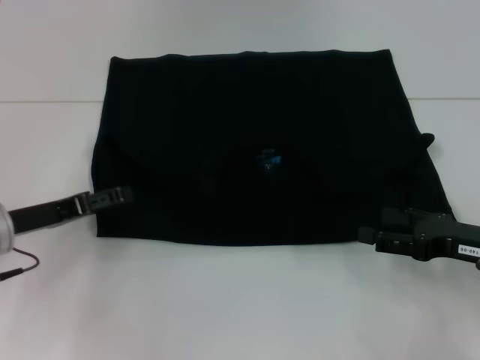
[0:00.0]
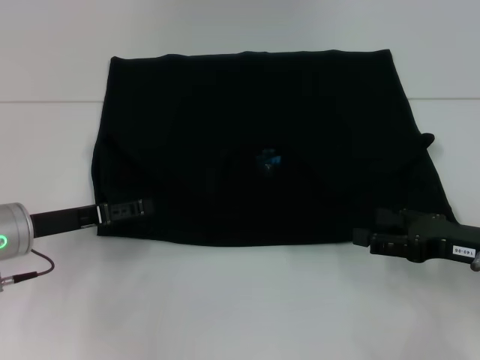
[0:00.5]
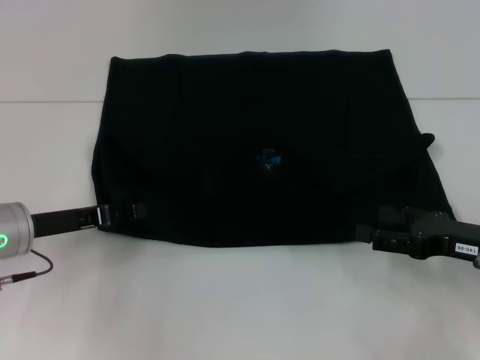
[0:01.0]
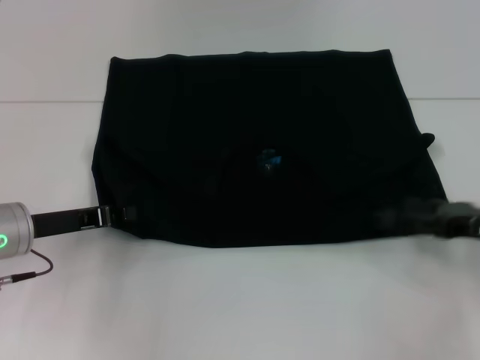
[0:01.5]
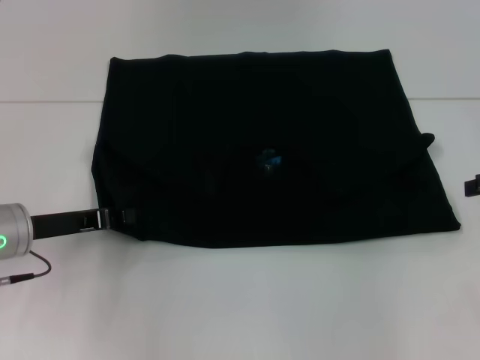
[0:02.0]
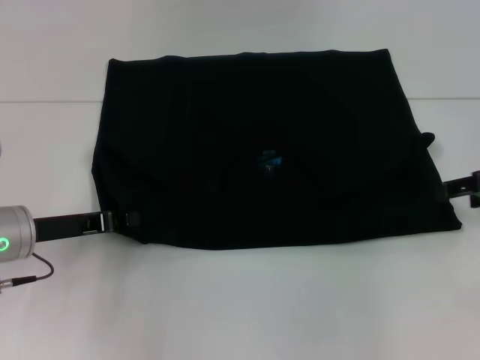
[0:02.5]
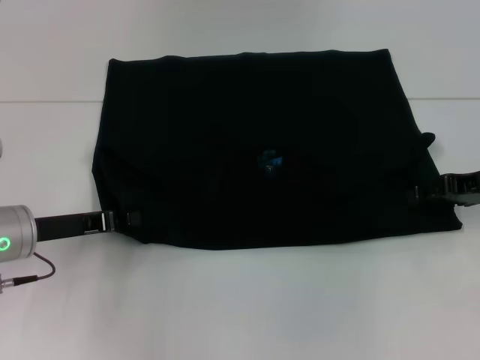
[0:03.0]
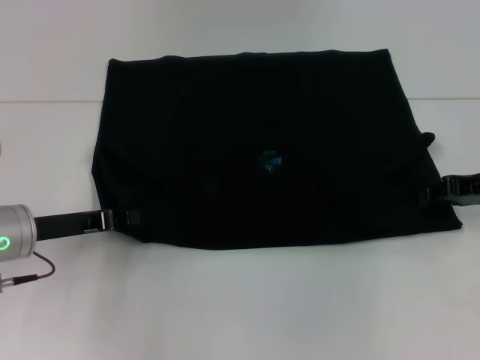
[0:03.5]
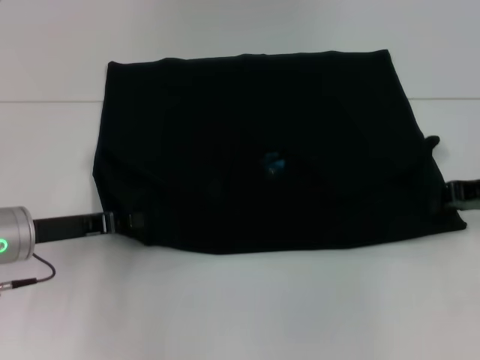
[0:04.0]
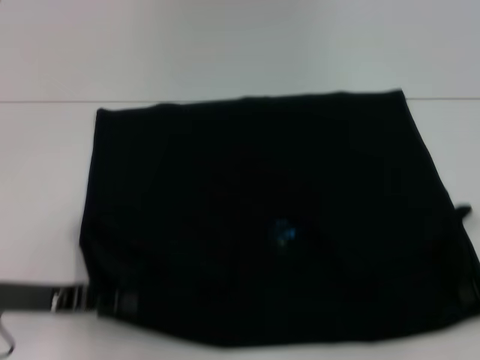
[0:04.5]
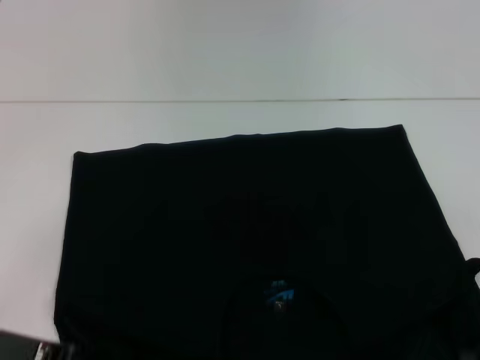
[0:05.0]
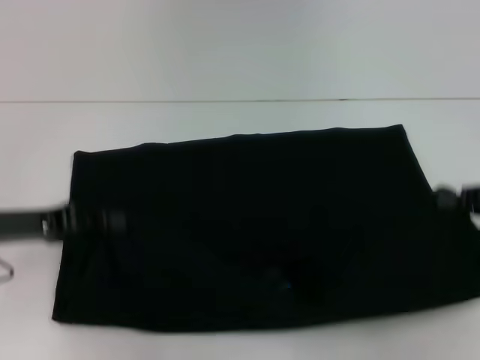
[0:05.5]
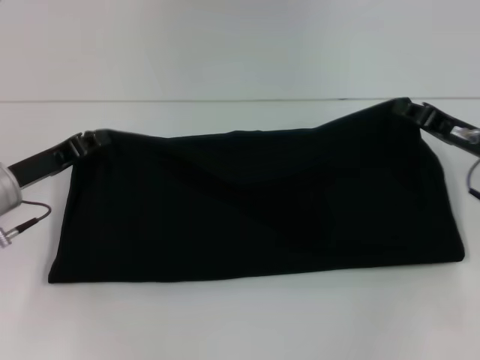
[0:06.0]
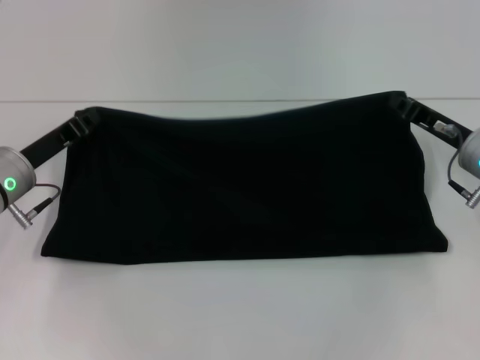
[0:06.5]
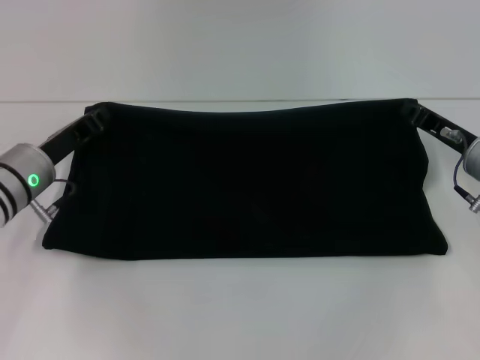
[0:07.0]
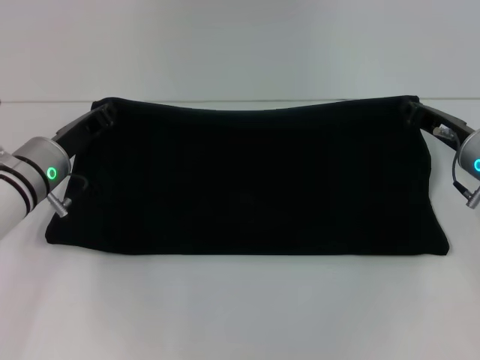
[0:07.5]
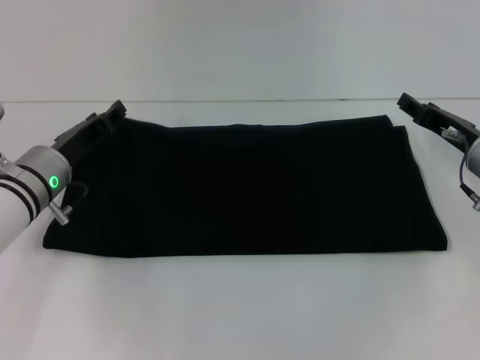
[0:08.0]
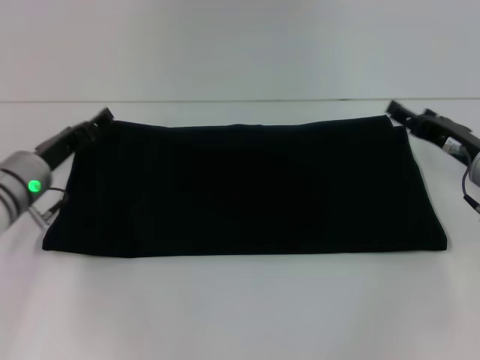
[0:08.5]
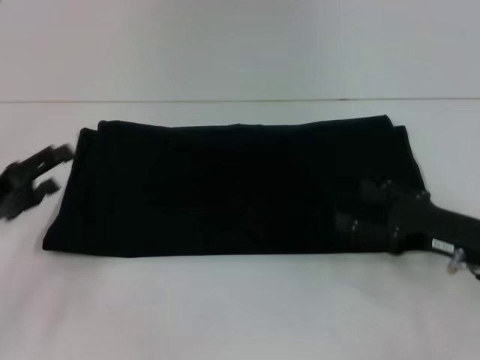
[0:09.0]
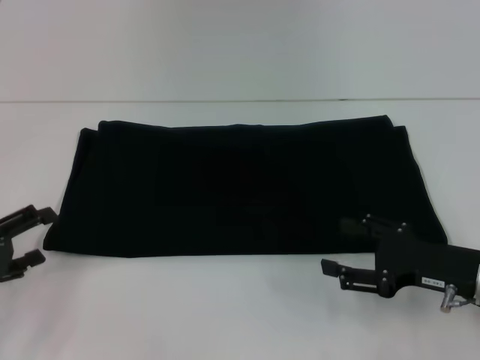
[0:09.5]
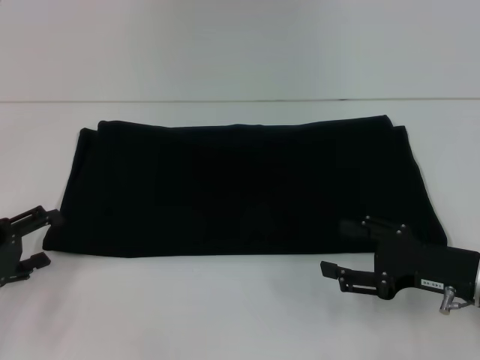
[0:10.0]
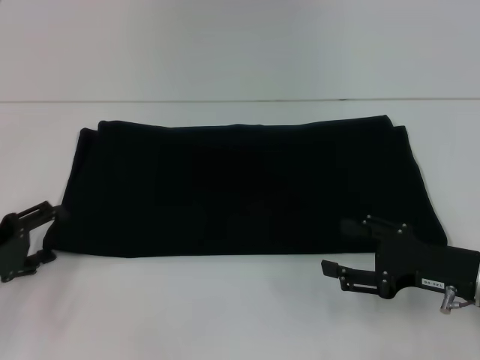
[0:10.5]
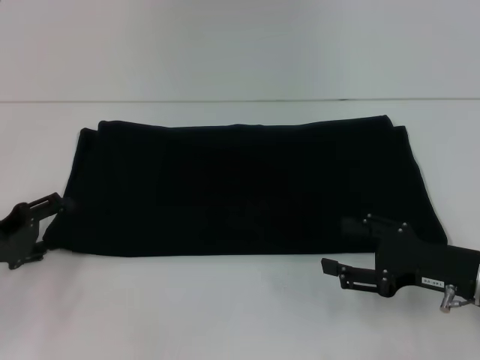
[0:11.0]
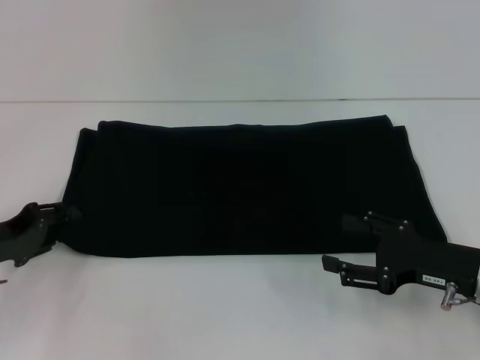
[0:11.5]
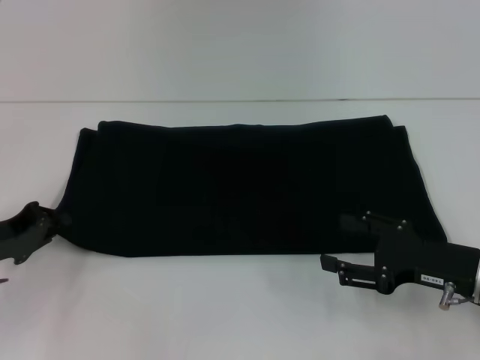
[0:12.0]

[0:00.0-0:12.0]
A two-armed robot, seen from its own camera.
Step, 0:00.0 to 0:04.5: Pull the clothes with your left hand.
Step, 0:00.0 to 0:04.5: Pull the clothes with your right hand.
Step, 0:05.0 to 0:08.0: Fold the clothes with your left hand.
Step, 0:05.0 to 0:08.0: Fold the clothes with your right hand.
0:00.0 to 0:02.0: The right gripper travels upward, to the right and forward by approximately 15 cm. Meanwhile the left gripper closes up.
0:02.0 to 0:04.0: The right gripper goes approximately 5 cm to the left, and closes.
0:04.0 to 0:06.0: The right gripper moves some 10 cm backward and comes back. The left gripper moves some 10 cm backward and comes back.
0:06.0 to 0:08.0: The right gripper opens up. The left gripper travels to the right by about 5 cm.
0:08.0 to 0:10.0: The right gripper heads backward, covering about 10 cm, and opens. The left gripper shifts about 15 cm backward and to the left, and opens.
0:10.0 to 0:12.0: The left gripper closes its fingers.

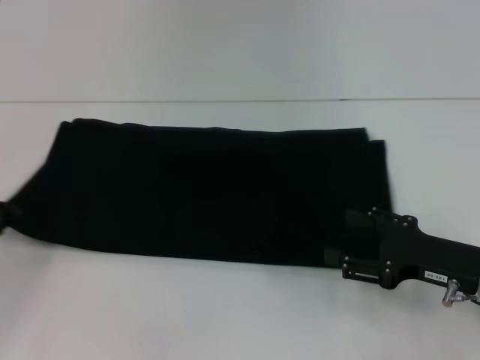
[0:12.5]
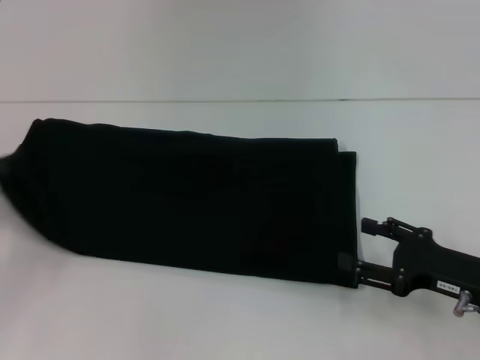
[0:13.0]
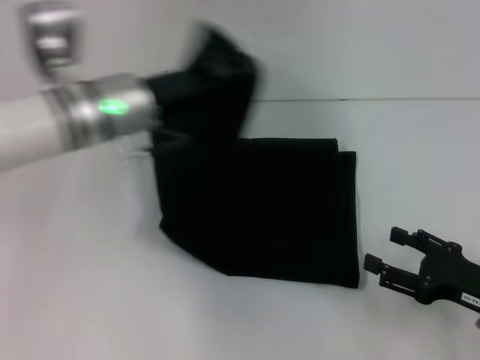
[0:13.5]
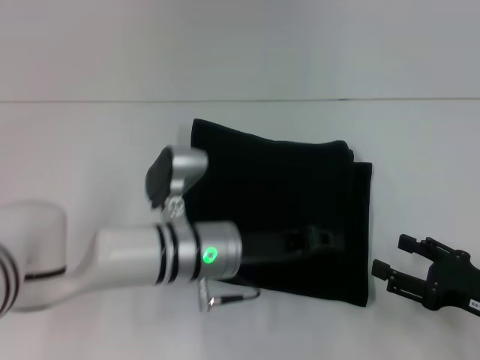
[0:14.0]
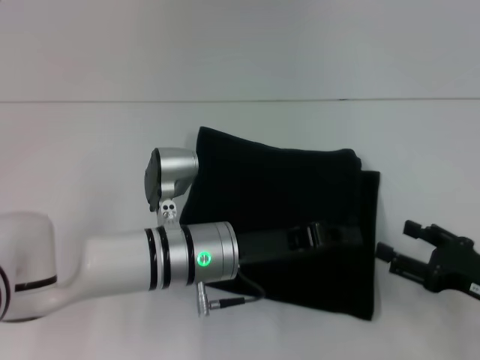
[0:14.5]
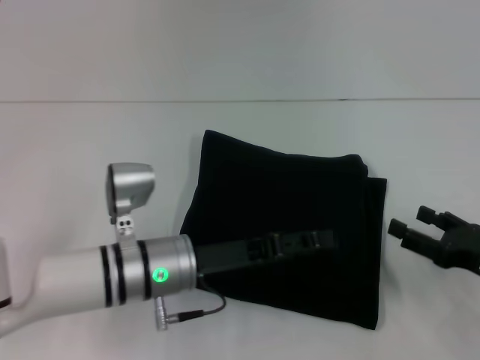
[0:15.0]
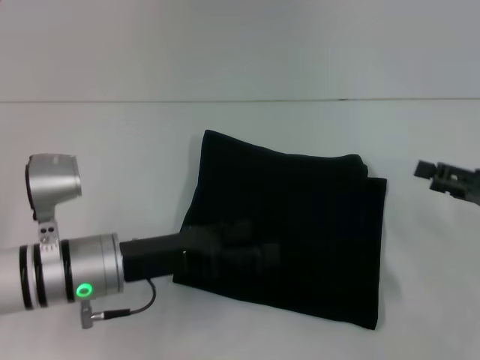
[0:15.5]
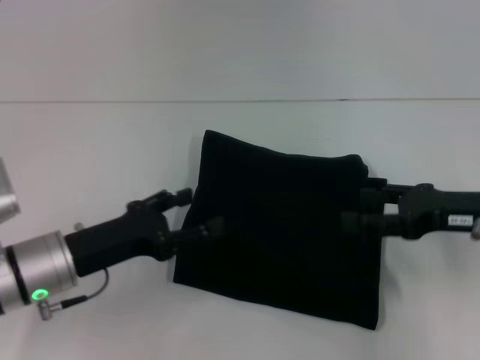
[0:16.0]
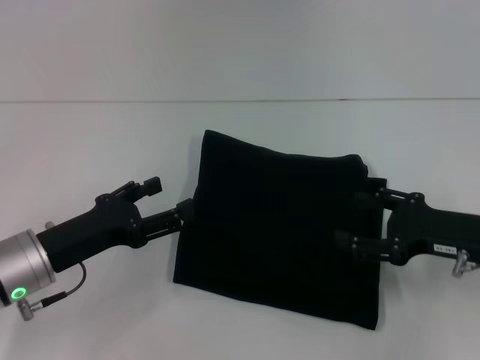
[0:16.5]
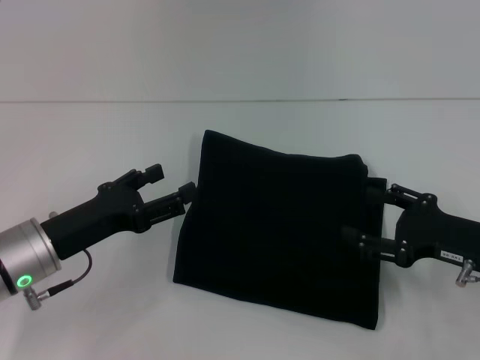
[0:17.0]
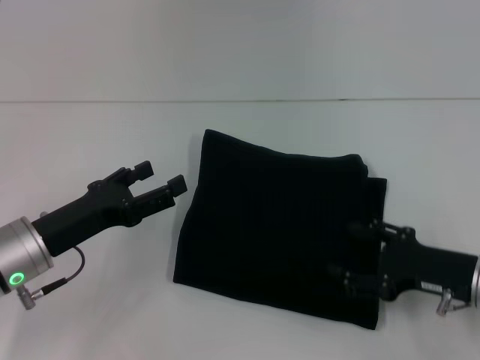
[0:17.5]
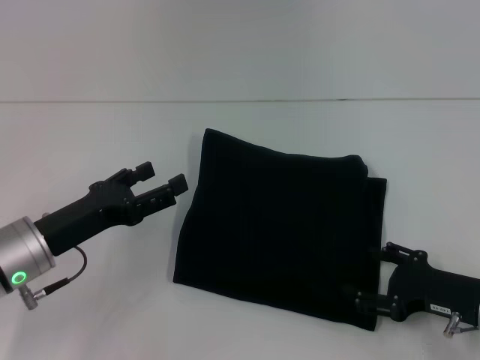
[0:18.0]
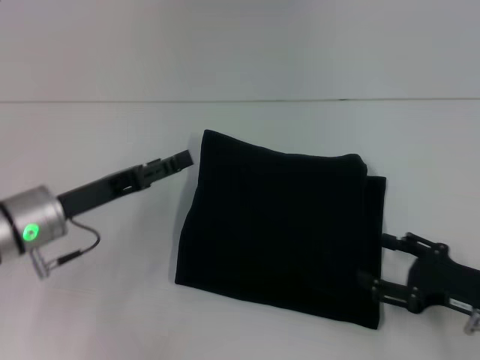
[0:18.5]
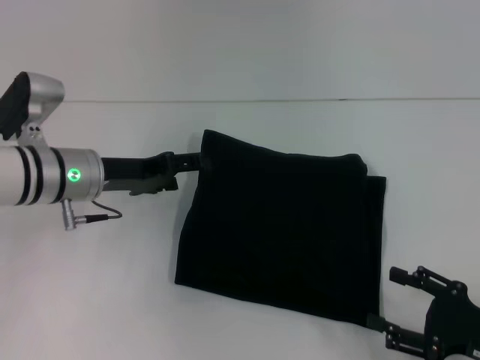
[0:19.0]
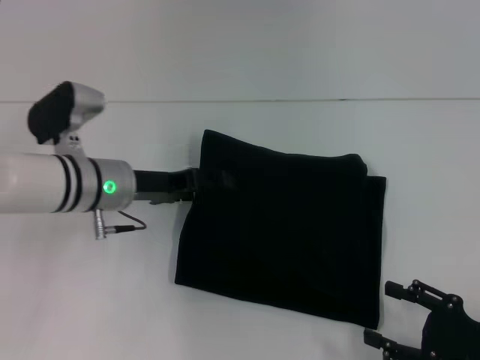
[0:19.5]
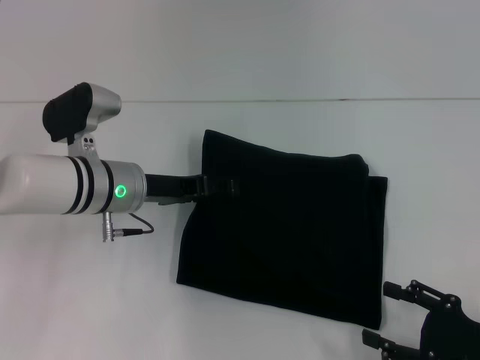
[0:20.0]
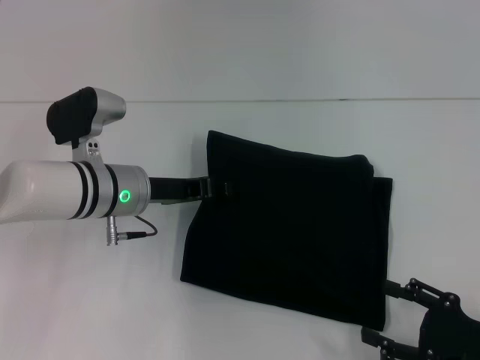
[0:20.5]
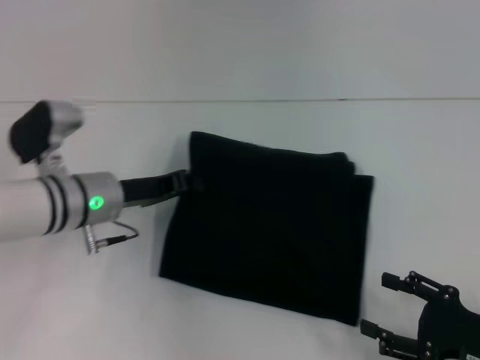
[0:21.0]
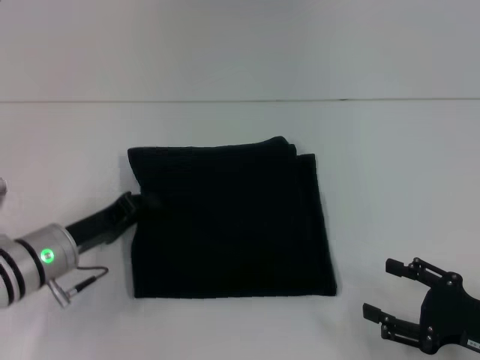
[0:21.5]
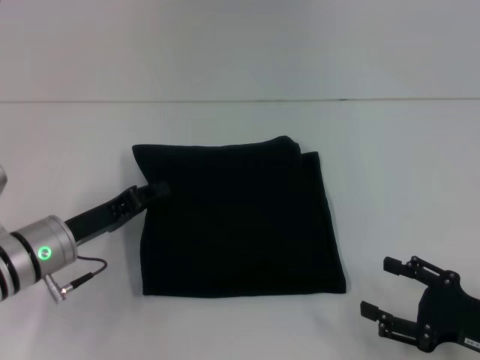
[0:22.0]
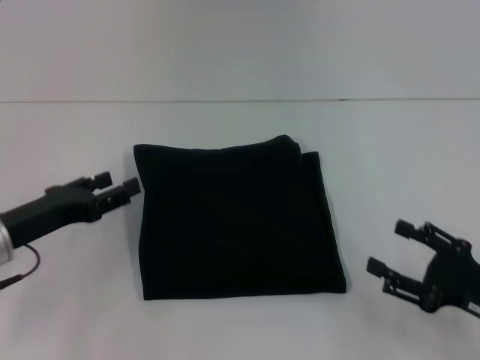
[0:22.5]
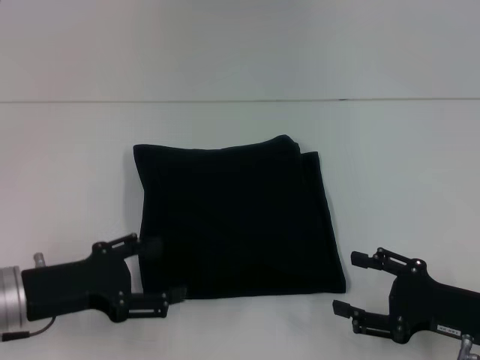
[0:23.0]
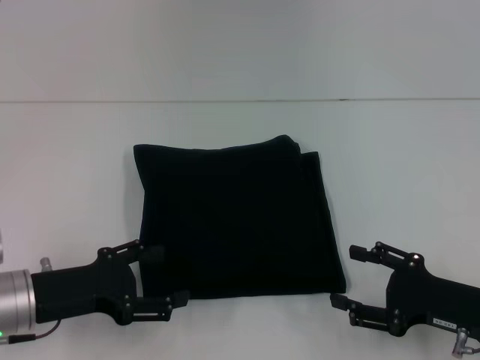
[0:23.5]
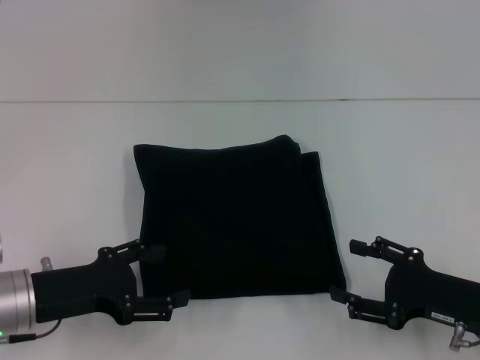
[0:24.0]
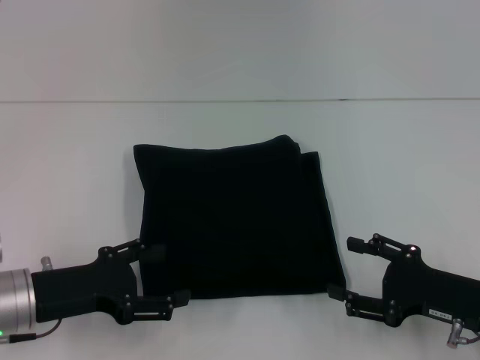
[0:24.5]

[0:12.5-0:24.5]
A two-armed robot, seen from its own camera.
Step, 0:12.5 to 0:14.5: Pull the clothes with your left hand.
0:12.5 to 0:14.5: The left gripper travels to the right by some 30 cm. Meanwhile the right gripper ends up approximately 5 cm from where it was.
0:14.5 to 0:16.5: The left gripper moves to the left, some 15 cm, and opens its fingers, while the right gripper shifts roughly 10 cm forward and upward.
0:16.5 to 0:18.5: The right gripper travels downward and backward by about 5 cm.
0:18.5 to 0:20.5: The left gripper is displaced to the right and forward by roughly 10 cm, and closes. Meanwhile the right gripper goes about 5 cm backward.
0:20.5 to 0:22.5: The left gripper moves to the left and backward, roughly 15 cm, and closes and opens again.
0:22.5 to 0:24.5: The left gripper opens its fingers.

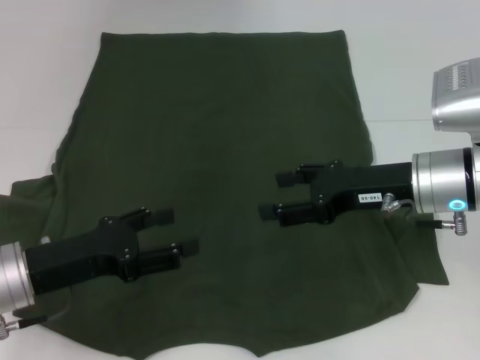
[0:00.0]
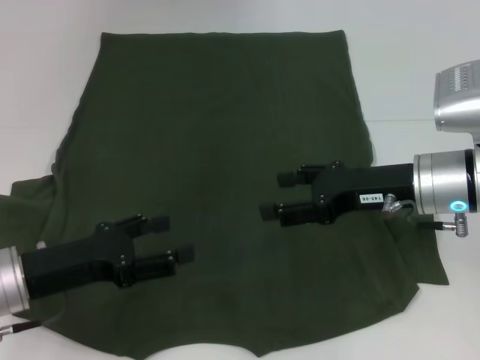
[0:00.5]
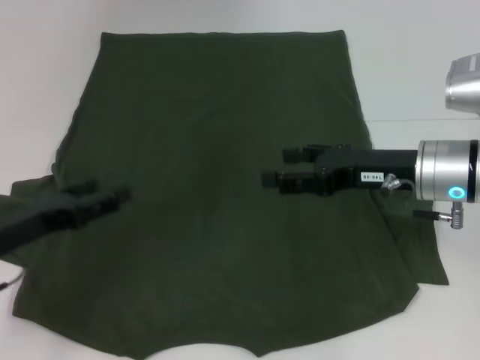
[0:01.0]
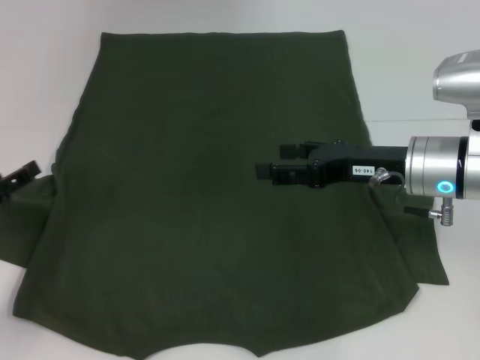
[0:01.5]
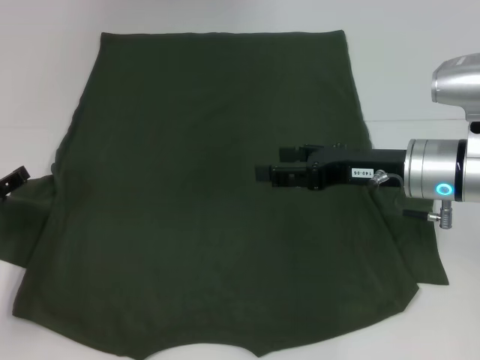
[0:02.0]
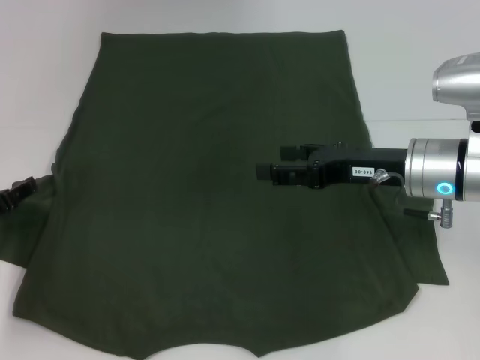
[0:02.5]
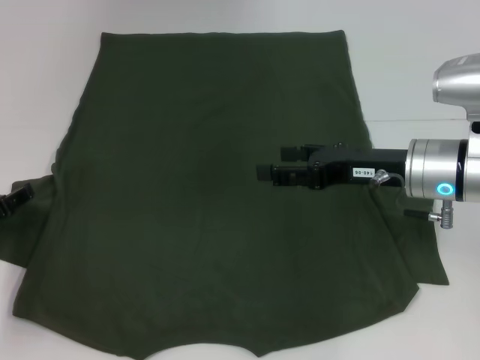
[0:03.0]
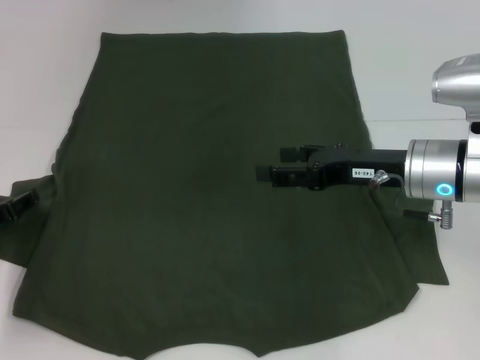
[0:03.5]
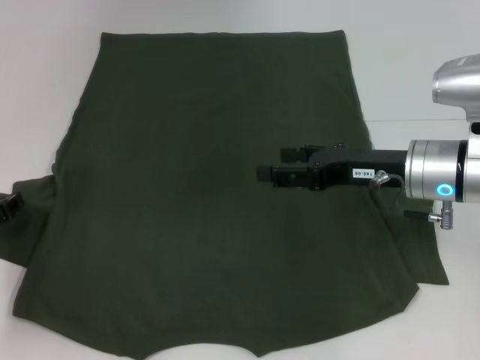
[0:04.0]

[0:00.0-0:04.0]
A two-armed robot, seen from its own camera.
0:00.0 to 0:02.0: The left gripper is displaced to the left by some 10 cm.
0:02.0 to 0:04.0: The grippers make only small movements.
